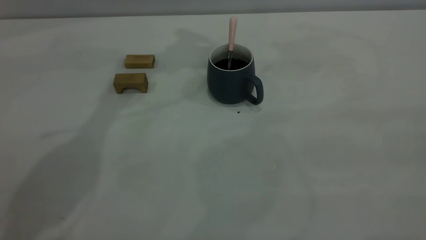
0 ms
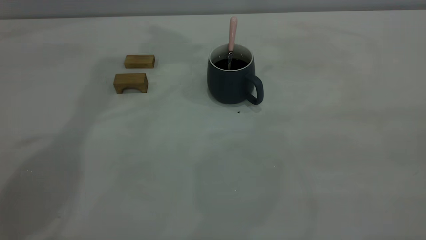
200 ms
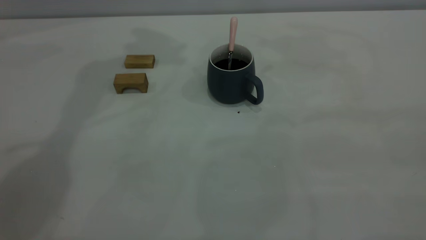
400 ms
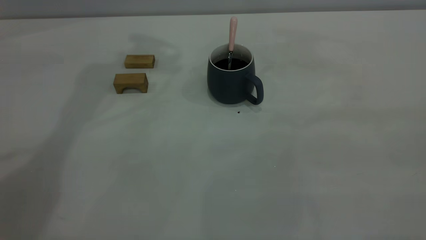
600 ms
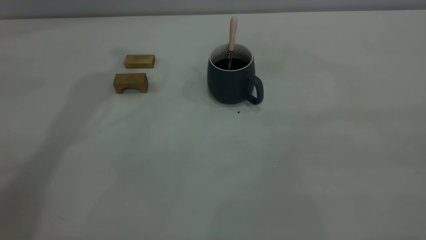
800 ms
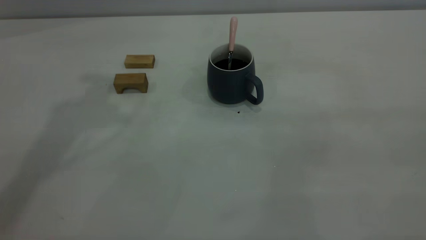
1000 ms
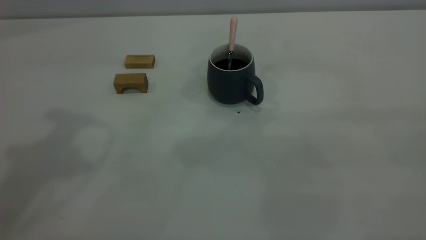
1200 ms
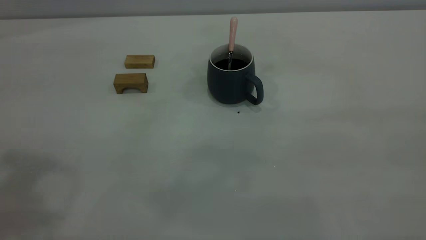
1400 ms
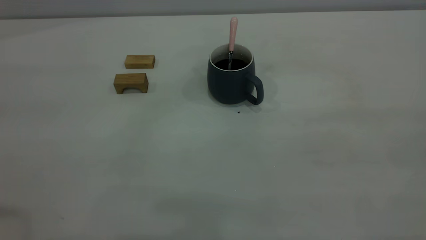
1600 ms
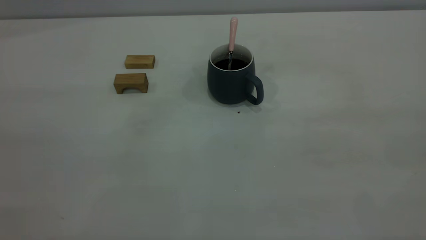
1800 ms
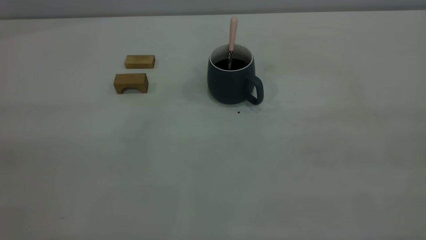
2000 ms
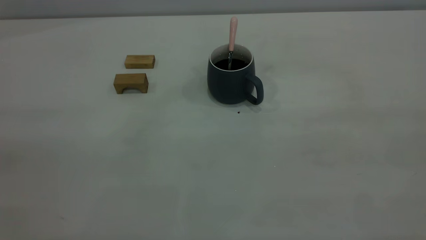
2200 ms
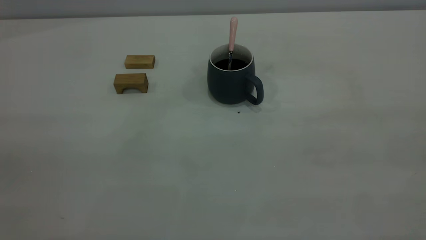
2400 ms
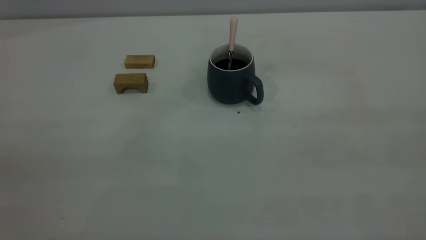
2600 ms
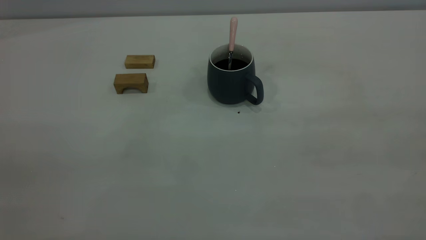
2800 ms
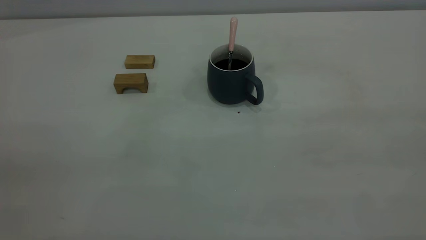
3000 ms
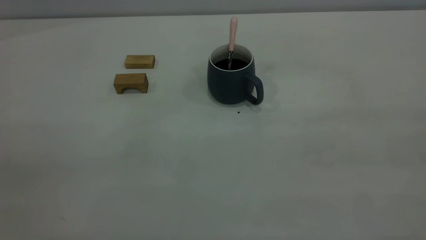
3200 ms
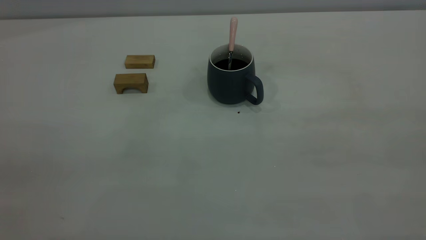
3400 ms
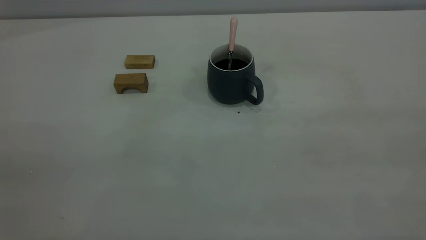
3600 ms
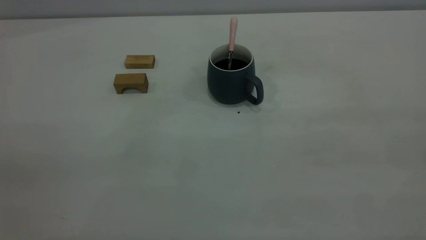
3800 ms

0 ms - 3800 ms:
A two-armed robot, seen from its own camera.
2600 ms - 3800 ms: The two grippers keep their place.
